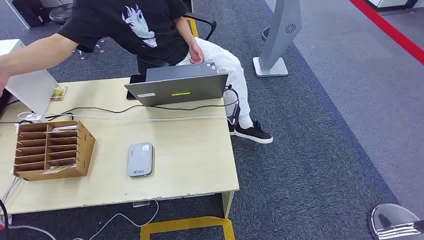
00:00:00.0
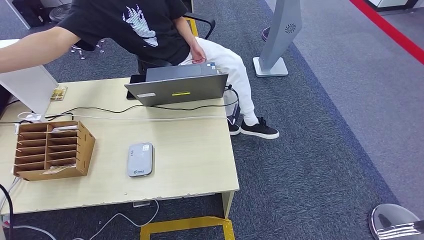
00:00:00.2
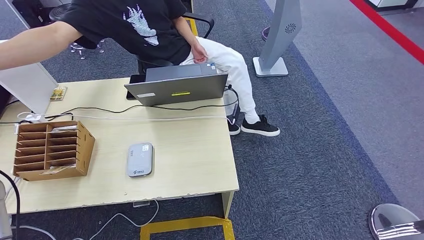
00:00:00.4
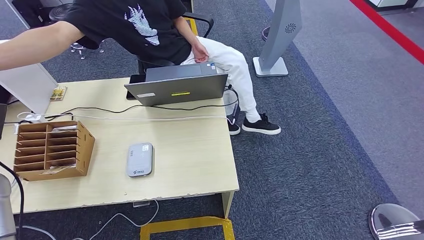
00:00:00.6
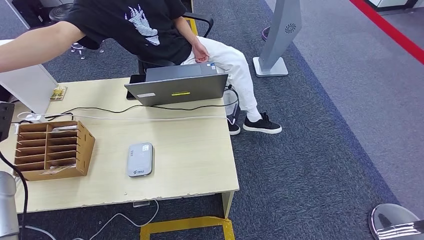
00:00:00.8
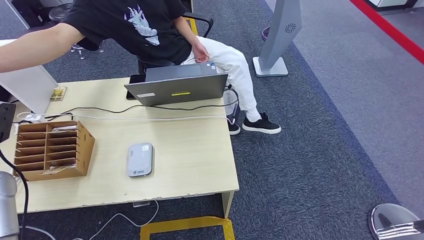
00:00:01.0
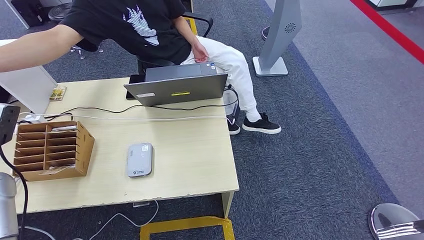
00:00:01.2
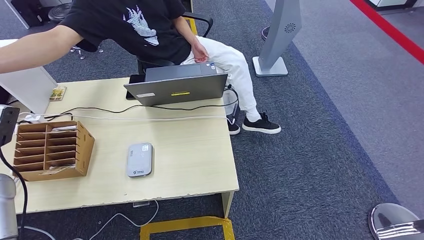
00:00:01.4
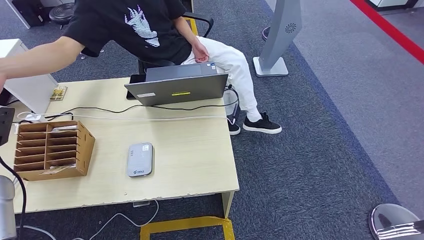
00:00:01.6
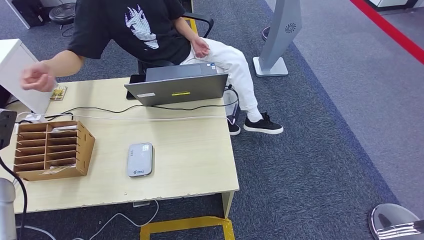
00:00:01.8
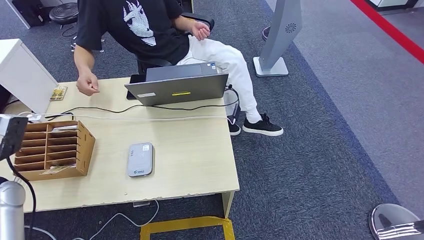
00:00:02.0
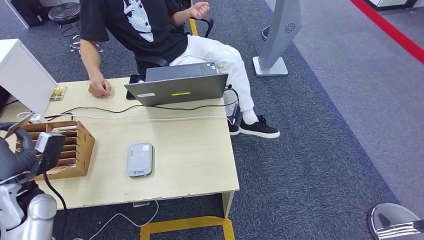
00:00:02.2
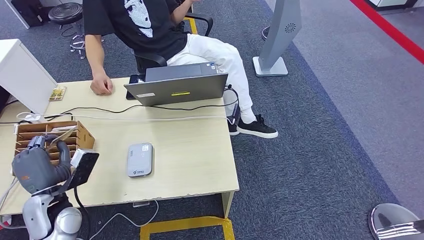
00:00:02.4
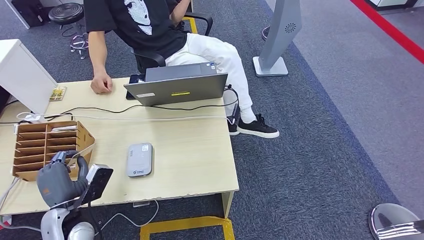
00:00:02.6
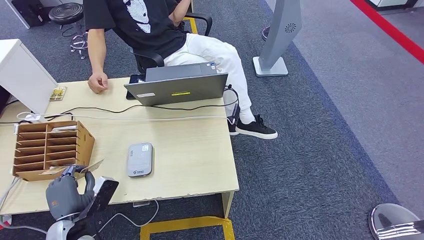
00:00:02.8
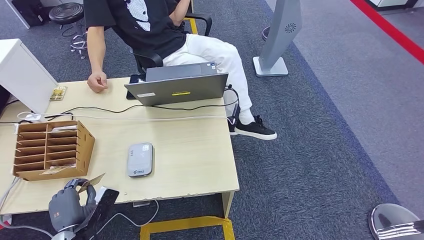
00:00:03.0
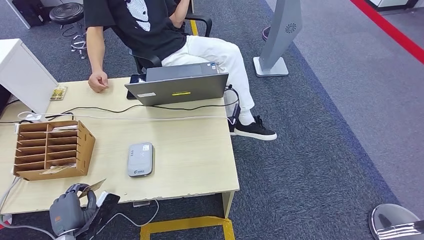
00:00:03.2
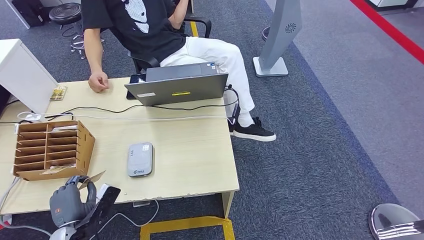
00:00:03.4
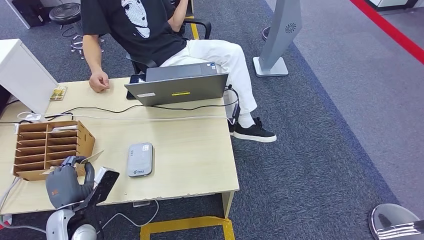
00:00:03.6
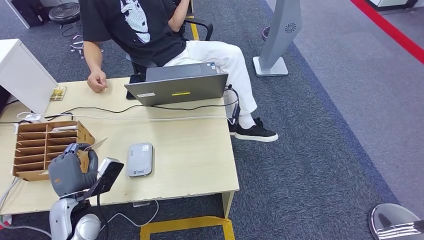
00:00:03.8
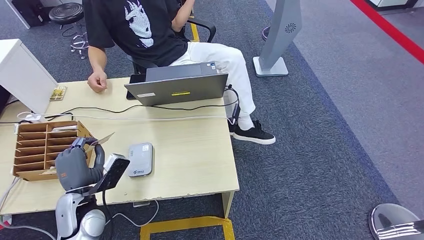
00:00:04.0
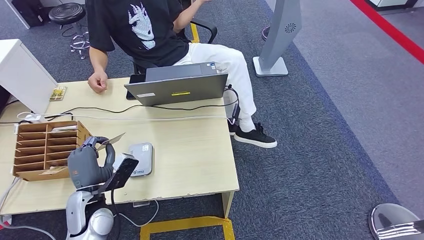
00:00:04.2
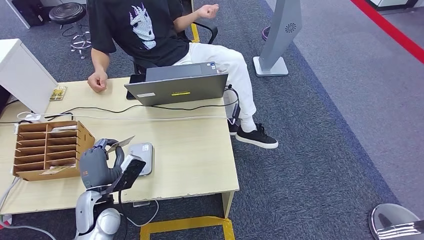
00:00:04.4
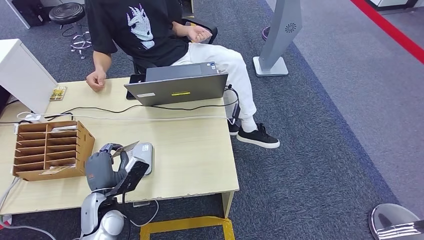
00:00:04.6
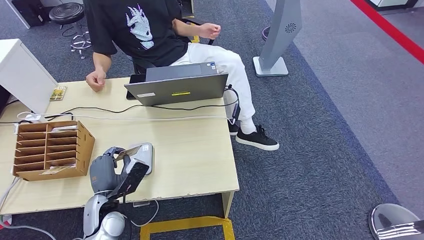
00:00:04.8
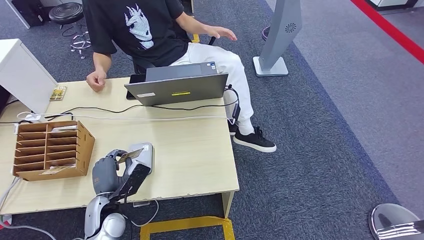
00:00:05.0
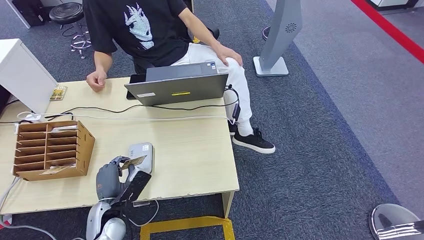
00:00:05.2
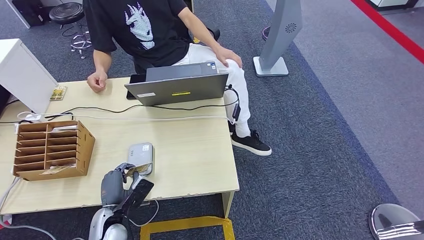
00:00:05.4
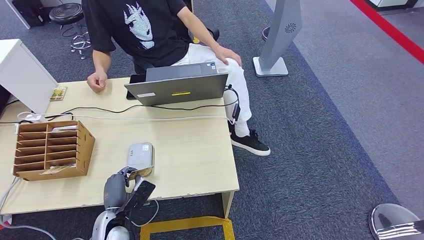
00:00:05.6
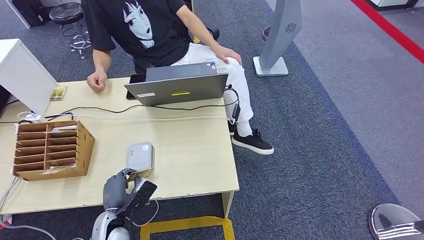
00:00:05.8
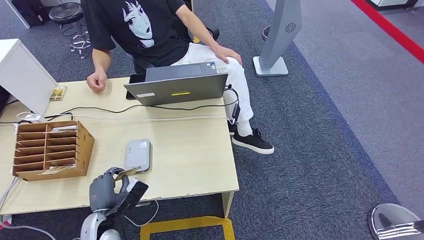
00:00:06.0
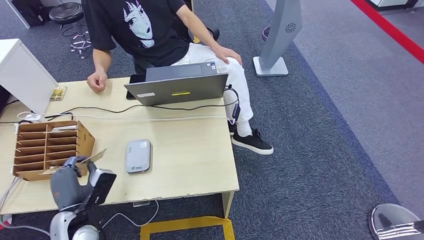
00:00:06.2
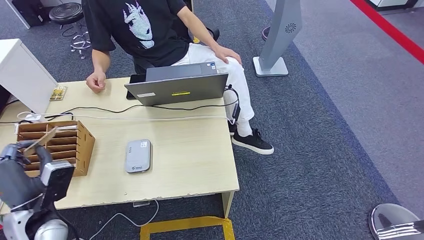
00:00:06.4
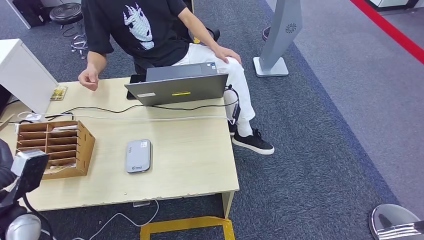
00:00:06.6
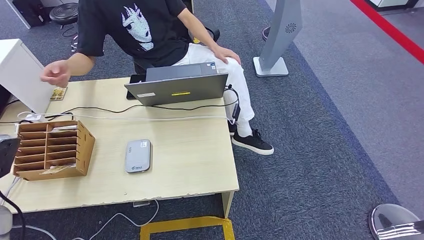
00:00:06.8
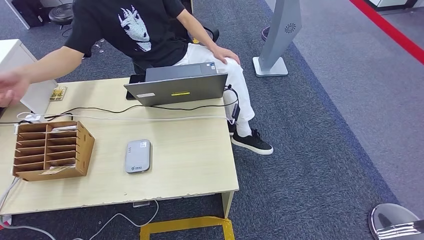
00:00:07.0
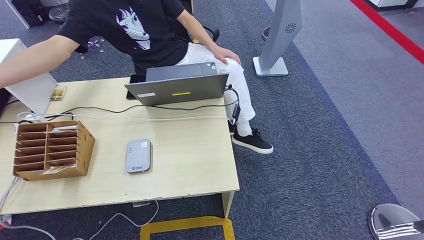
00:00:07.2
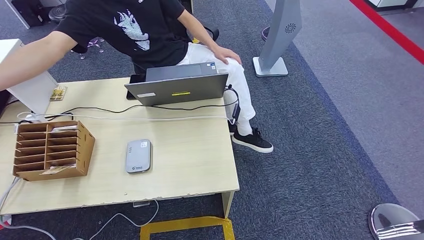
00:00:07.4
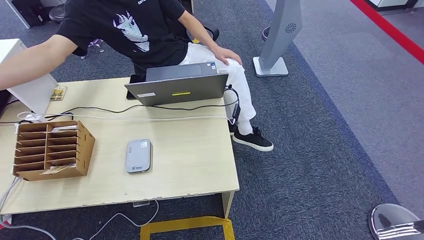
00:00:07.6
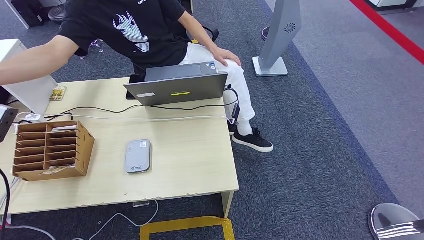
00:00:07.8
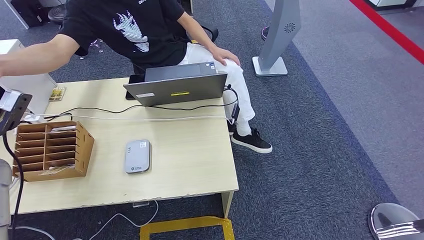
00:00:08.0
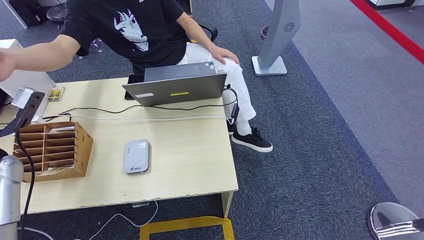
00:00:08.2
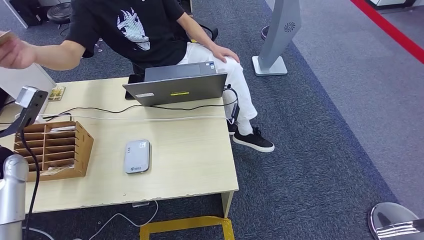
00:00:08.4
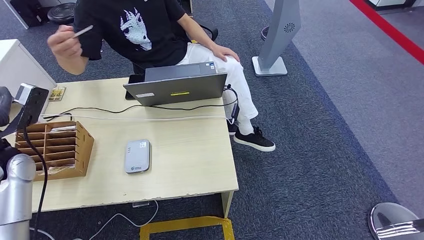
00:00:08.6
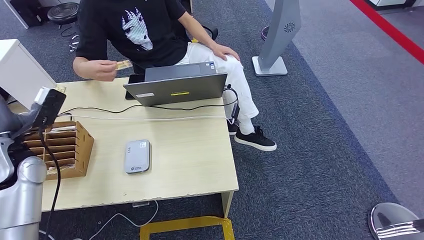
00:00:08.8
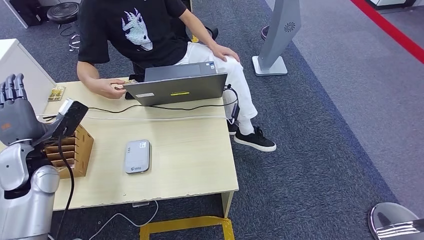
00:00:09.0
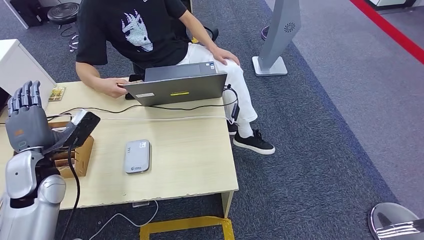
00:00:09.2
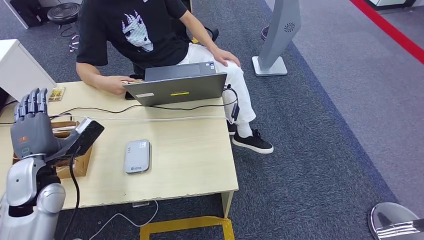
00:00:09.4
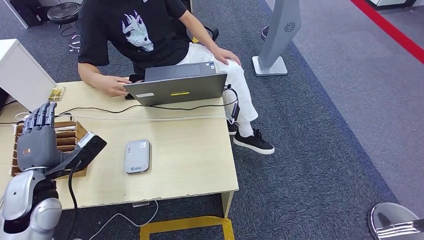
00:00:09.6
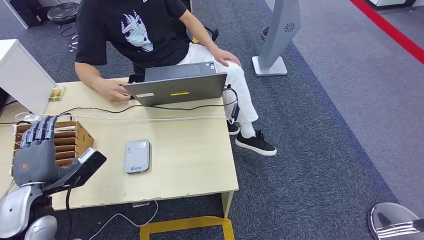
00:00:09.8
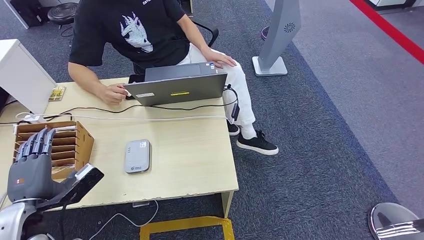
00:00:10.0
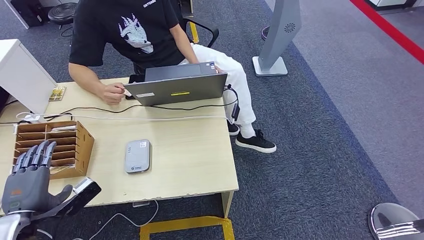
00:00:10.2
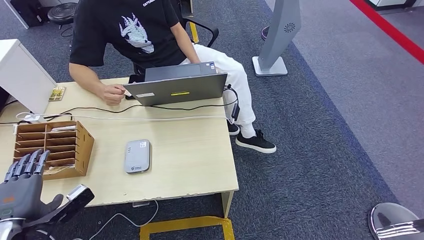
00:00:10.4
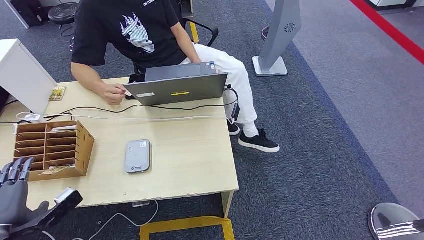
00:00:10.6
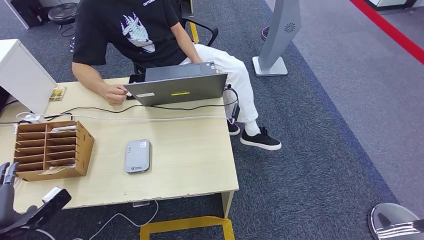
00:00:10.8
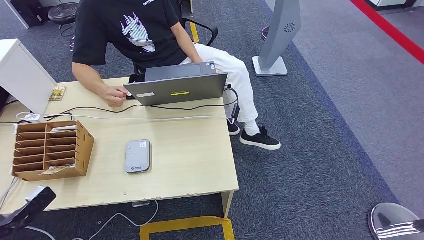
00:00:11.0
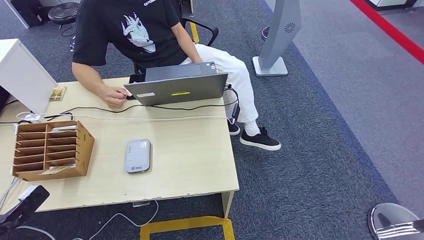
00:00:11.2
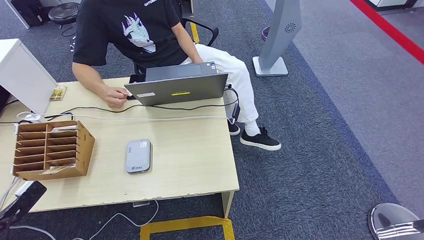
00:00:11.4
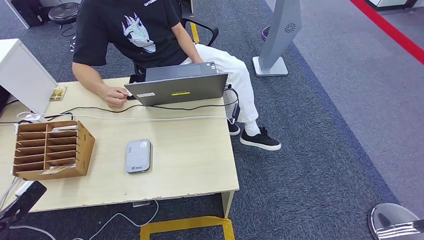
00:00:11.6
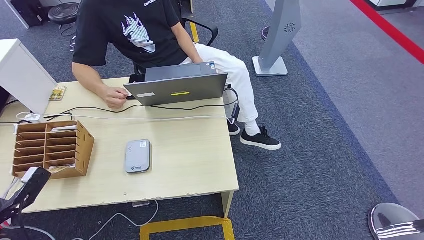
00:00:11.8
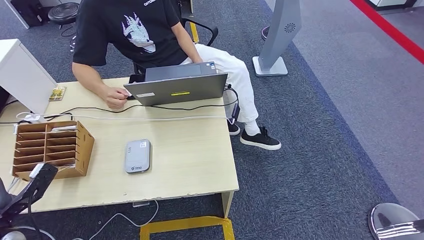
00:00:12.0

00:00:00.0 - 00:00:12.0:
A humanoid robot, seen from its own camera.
Step, 00:00:00.0 - 00:00:02.2: Take the ID card from the person's hand.
Step, 00:00:02.4 - 00:00:05.6: Place the ID card on the card reader.
Step, 00:00:05.8 - 00:00:08.4: Hand the ID card to the person.
00:00:01.6 - 00:00:03.0: The left hand is displaced downward, backward and to the right by some 25 cm.
00:00:03.0 - 00:00:04.4: The left hand shifts about 10 cm to the right, forward and upward.
00:00:04.4 - 00:00:06.0: The left hand is displaced downward by roughly 10 cm.
00:00:06.0 - 00:00:07.6: The left hand goes some 30 cm to the left and upward.
00:00:07.6 - 00:00:09.0: The left hand heads to the right, covering roughly 15 cm.
00:00:09.0 - 00:00:10.4: The left hand goes roughly 15 cm backward and downward.
00:00:10.4 - 00:00:12.0: The left hand goes roughly 5 cm to the left.

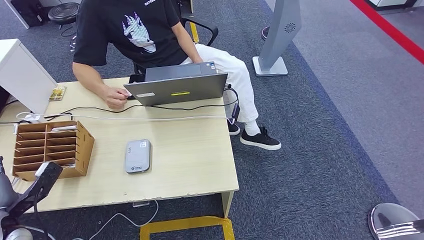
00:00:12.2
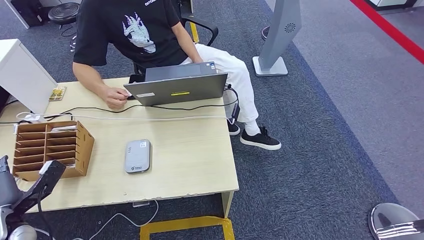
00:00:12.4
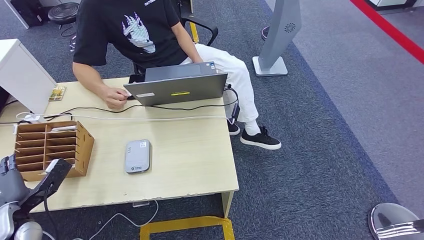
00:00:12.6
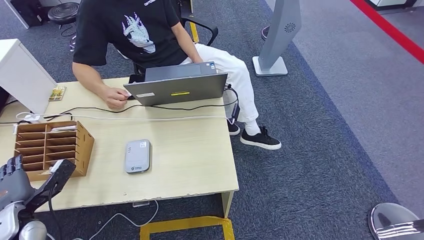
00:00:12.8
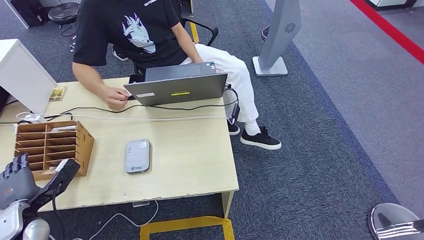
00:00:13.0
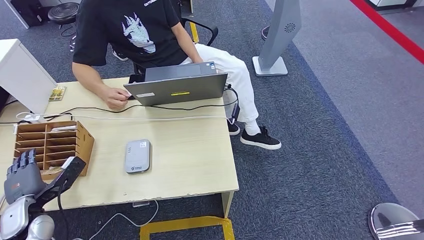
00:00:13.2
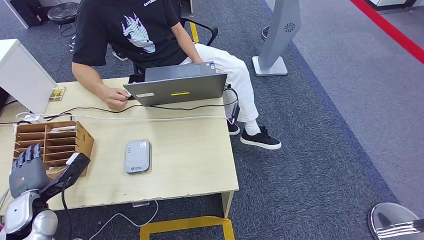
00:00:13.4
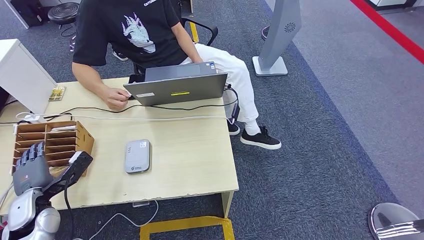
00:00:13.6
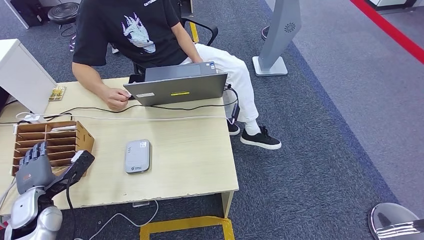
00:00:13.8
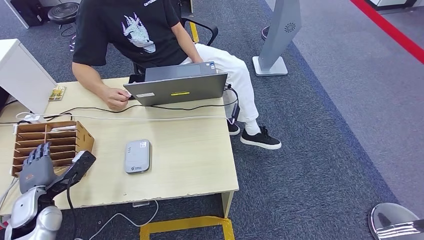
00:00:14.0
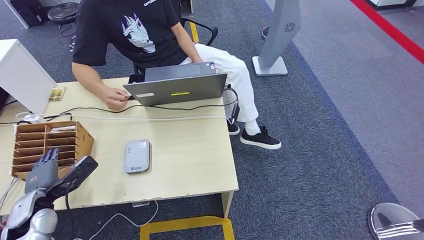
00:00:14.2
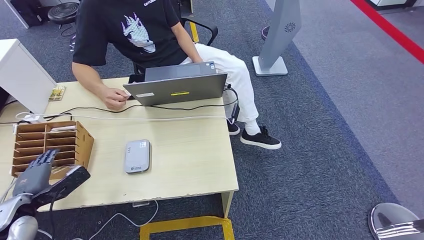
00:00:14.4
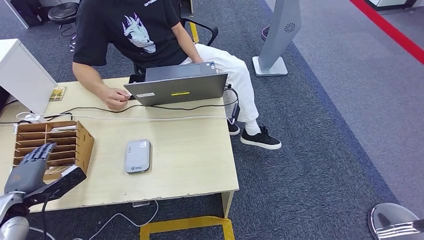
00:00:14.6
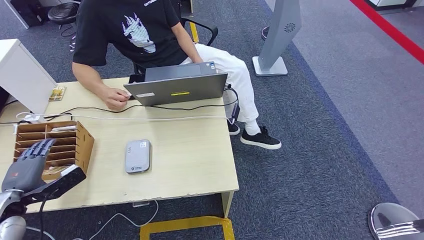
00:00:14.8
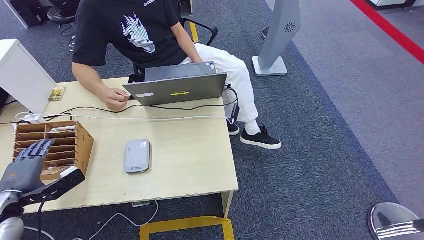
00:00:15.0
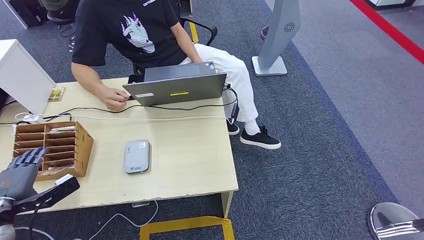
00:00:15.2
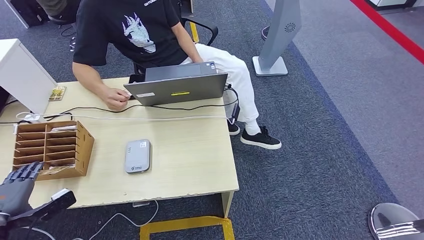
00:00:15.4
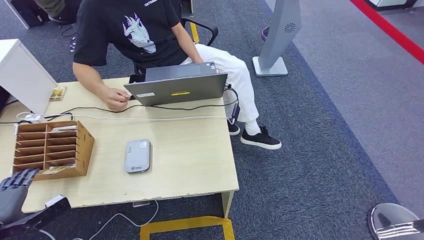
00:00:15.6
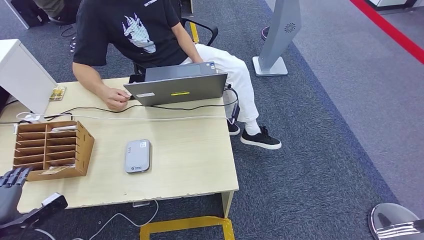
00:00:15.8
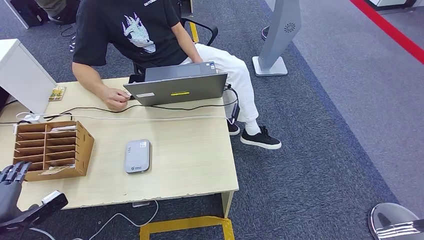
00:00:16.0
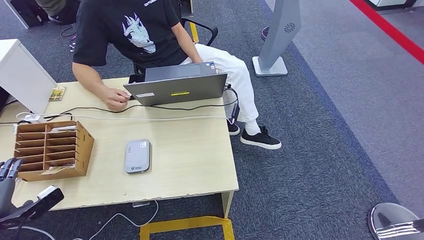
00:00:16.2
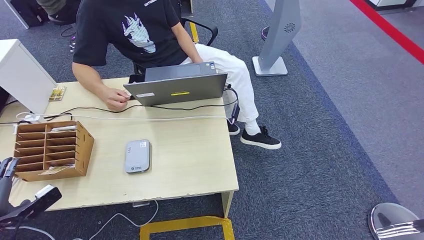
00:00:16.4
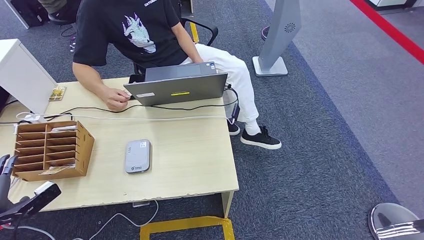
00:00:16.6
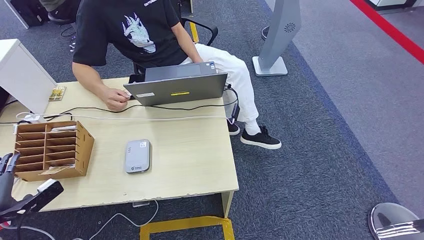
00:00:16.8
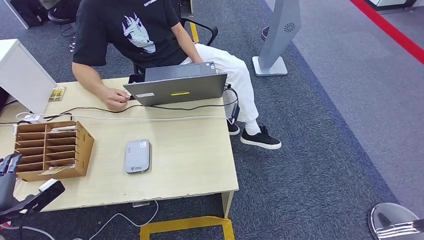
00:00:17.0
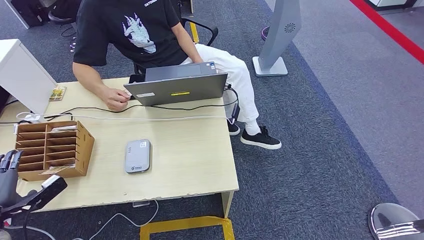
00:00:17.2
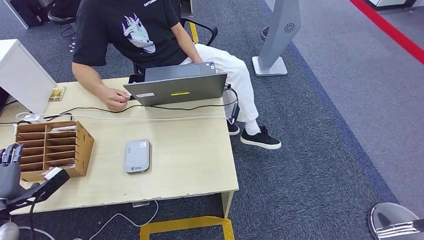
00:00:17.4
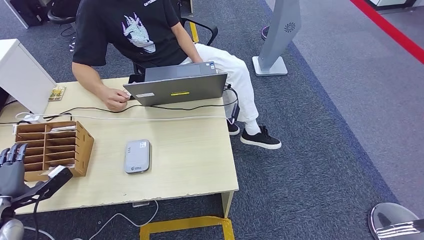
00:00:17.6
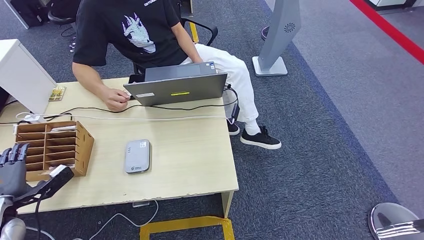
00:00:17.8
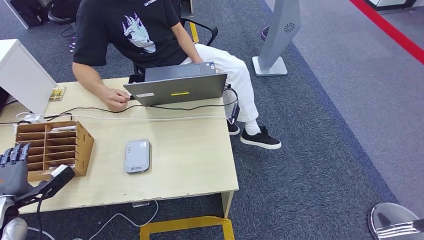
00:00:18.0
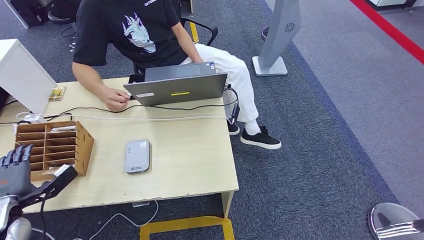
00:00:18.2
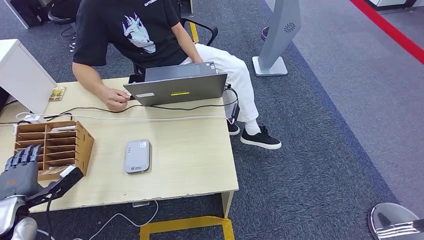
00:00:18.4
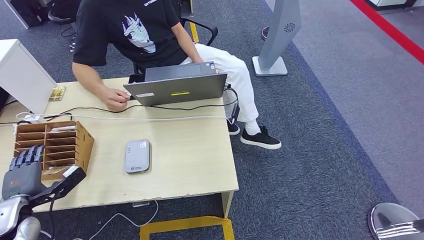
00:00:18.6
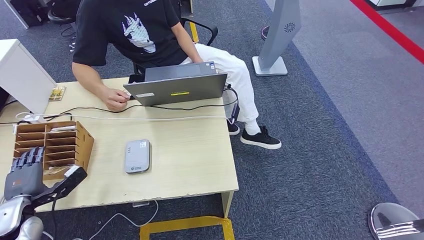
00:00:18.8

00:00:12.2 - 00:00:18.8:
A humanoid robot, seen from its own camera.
00:00:12.2 - 00:00:13.8: The left hand changes place by roughly 5 cm.
00:00:13.8 - 00:00:15.4: The left hand is displaced to the left and backward by roughly 10 cm.
00:00:15.4 - 00:00:17.2: The hands move only a little.
00:00:17.2 - 00:00:18.8: The left hand shifts by approximately 5 cm.
